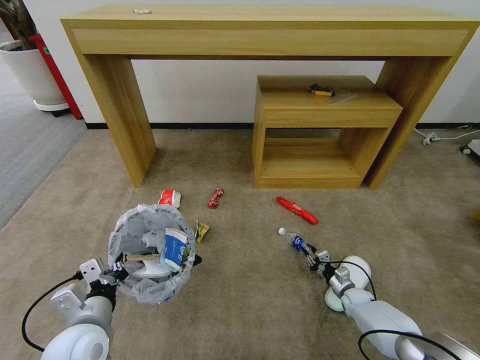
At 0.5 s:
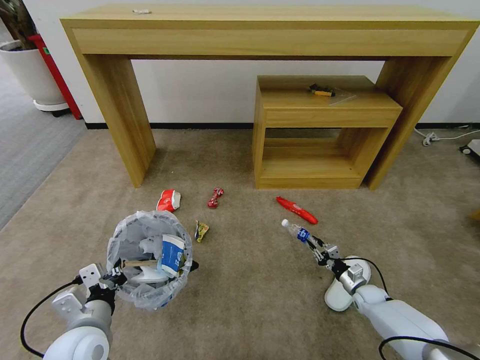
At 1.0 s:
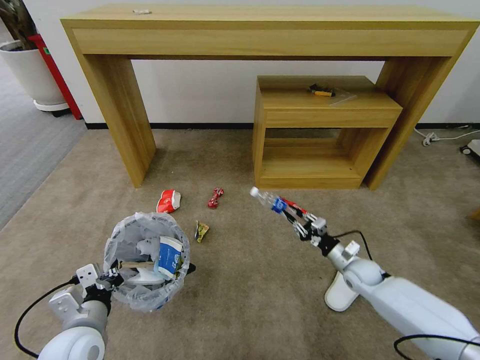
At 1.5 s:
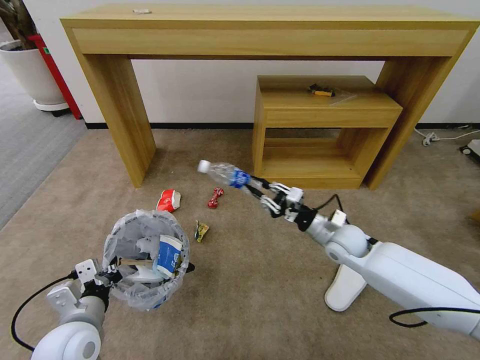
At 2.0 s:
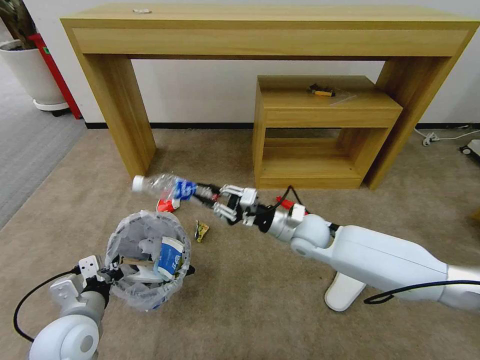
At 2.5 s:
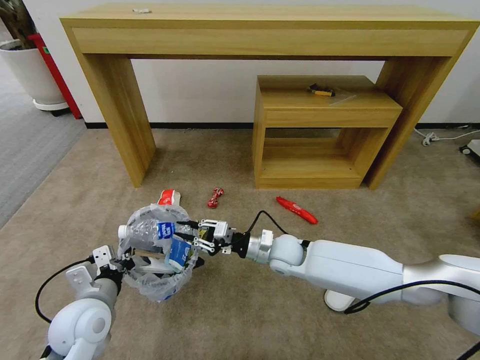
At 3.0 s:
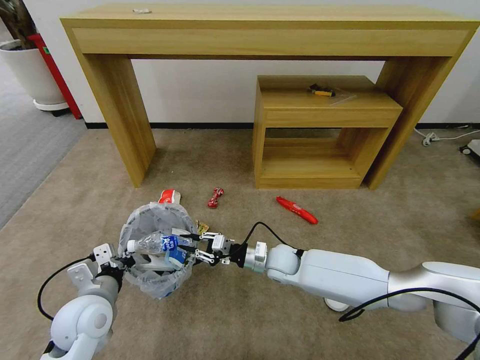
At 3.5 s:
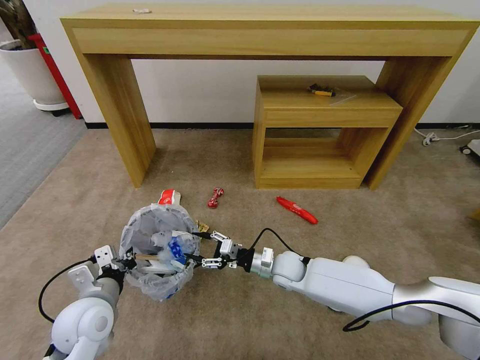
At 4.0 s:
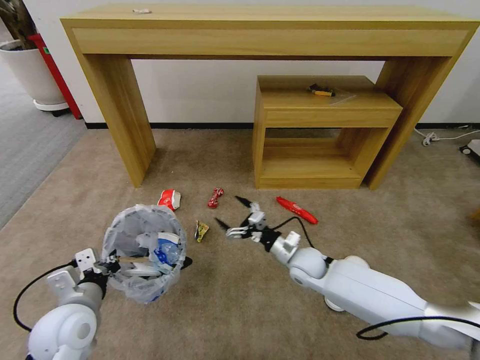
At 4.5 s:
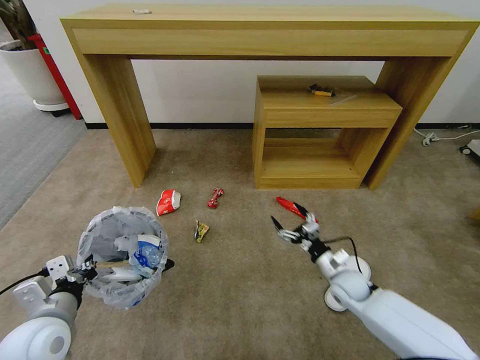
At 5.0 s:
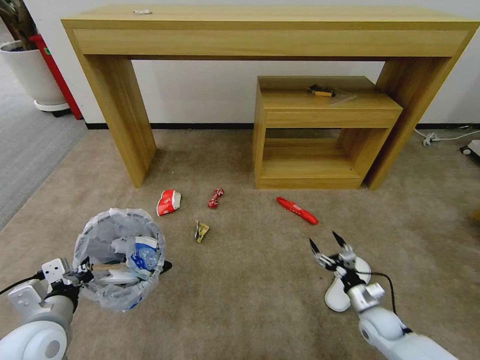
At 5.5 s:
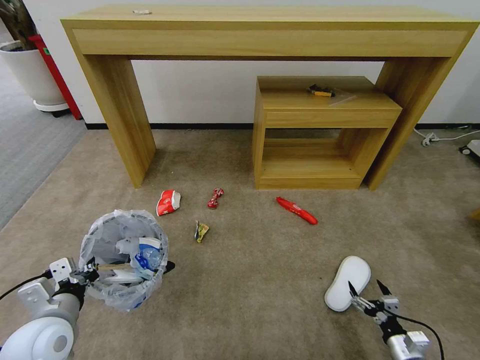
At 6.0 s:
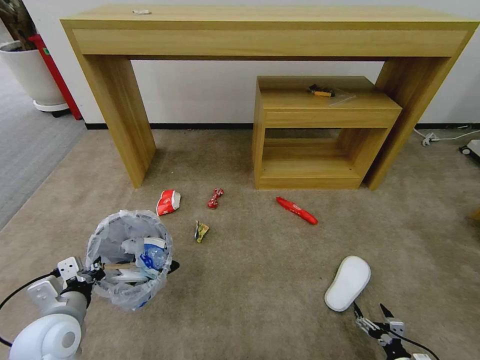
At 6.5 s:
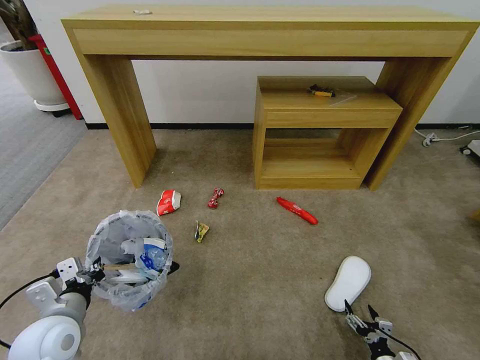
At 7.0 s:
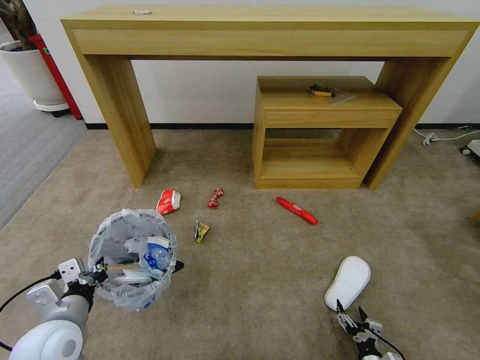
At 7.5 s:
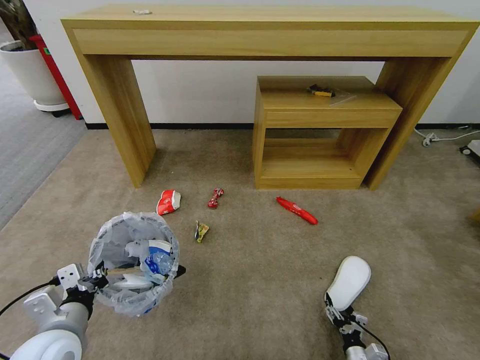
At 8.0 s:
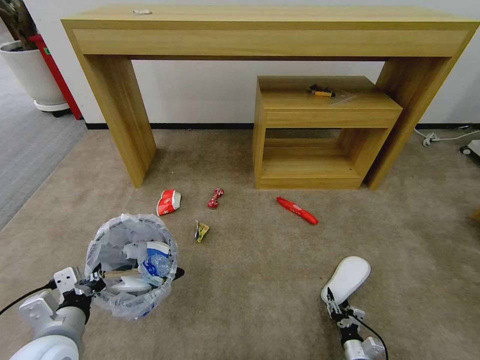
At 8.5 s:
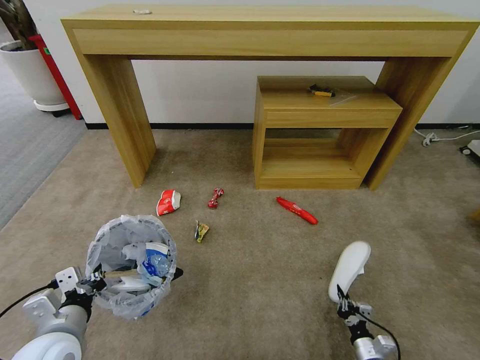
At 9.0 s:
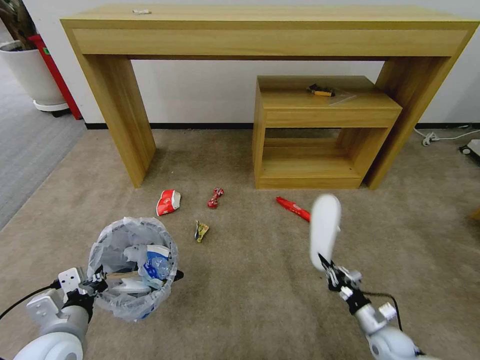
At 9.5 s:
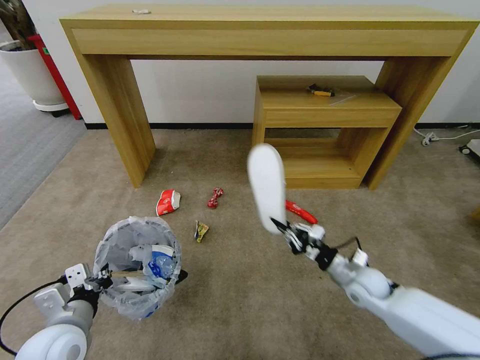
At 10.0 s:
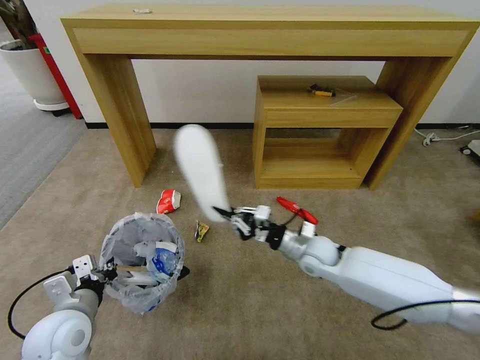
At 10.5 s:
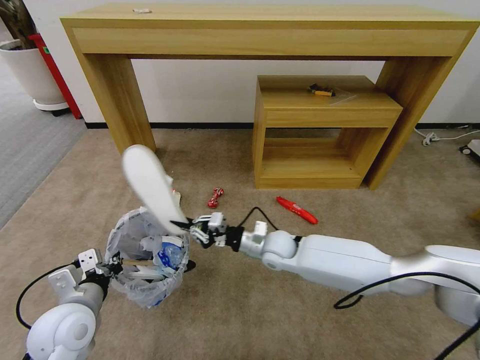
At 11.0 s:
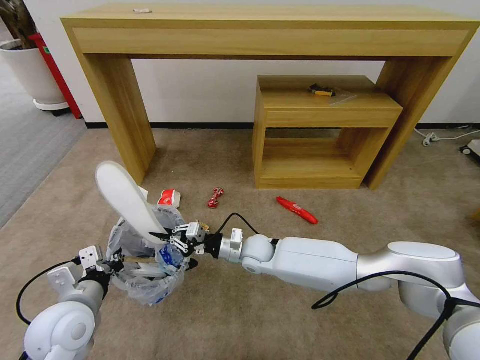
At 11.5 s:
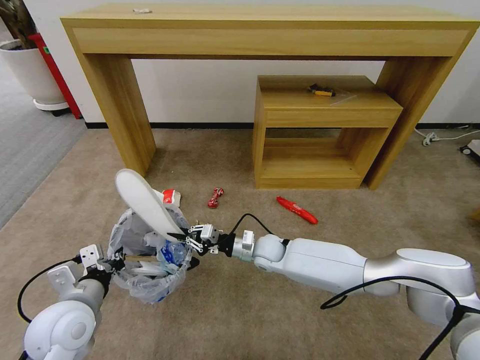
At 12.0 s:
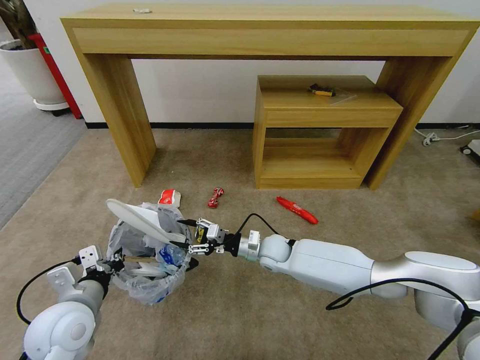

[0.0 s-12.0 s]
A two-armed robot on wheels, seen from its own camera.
Task of the whole recording: Pick up the trash bin and place the garbage on the floor into it.
0.0 to 2.0 s: The right gripper heads upward and to the left, covering roughly 40 cm.
2.0 to 4.0 s: The right gripper moves downward, about 10 cm, and opens its fingers.
4.0 to 6.0 s: The right gripper shifts about 40 cm backward, to the right and downward.
6.0 to 8.0 s: The left gripper changes place by about 5 cm. Meanwhile the right gripper goes some 10 cm to the left and forward, and closes.
8.0 to 10.0 s: The right gripper goes approximately 40 cm upward, forward and to the left, and closes.
10.0 to 12.0 s: The right gripper heads to the left and downward, covering about 10 cm, and opens up.

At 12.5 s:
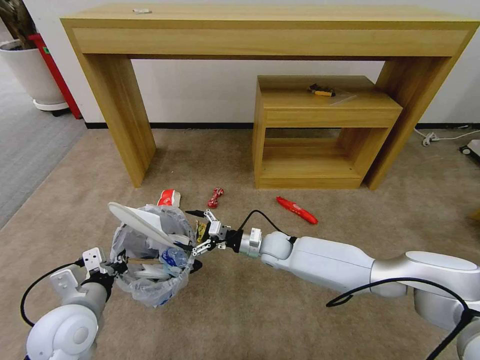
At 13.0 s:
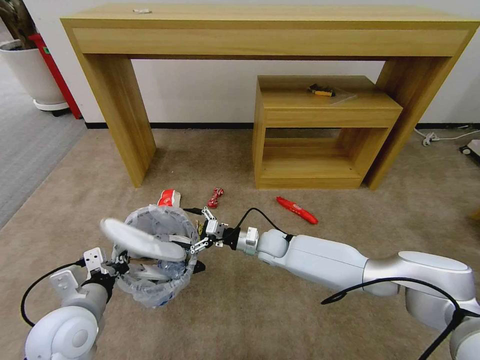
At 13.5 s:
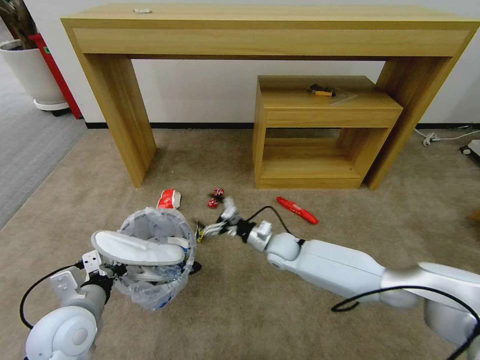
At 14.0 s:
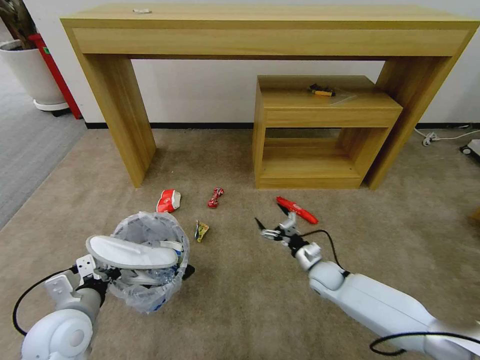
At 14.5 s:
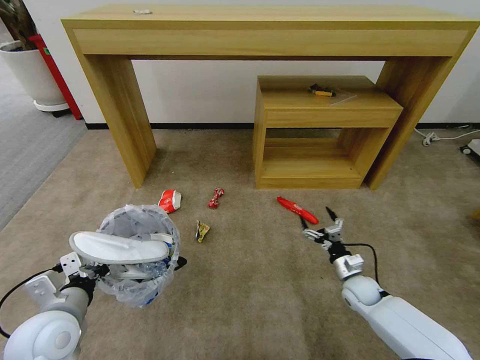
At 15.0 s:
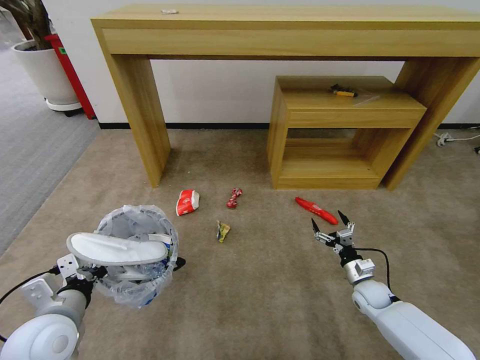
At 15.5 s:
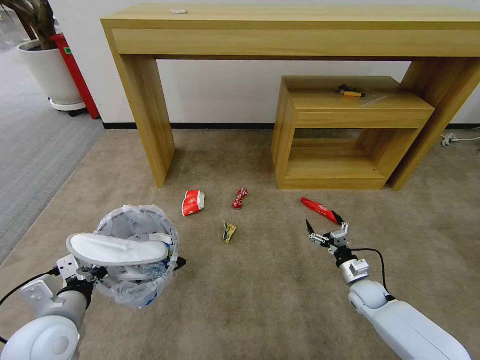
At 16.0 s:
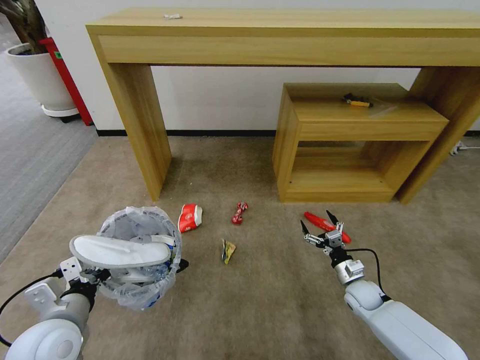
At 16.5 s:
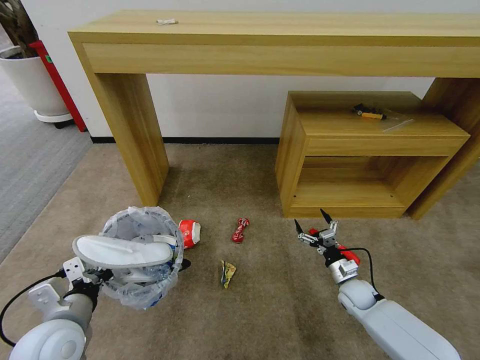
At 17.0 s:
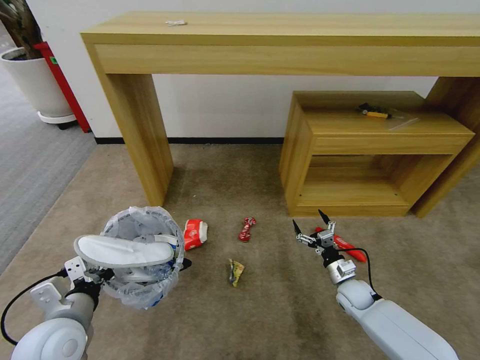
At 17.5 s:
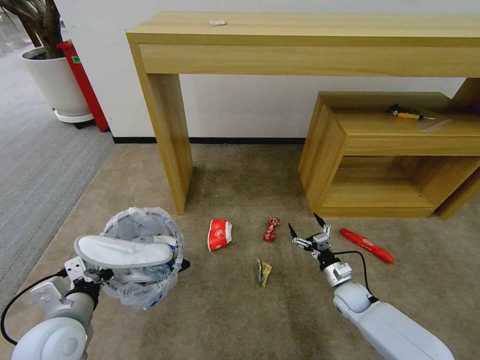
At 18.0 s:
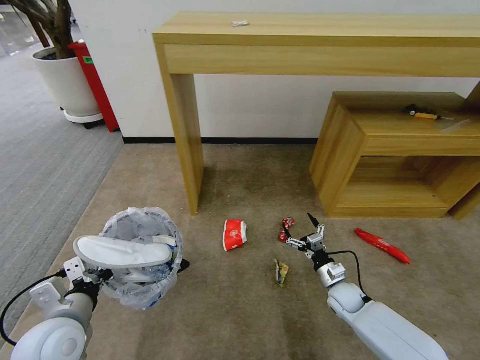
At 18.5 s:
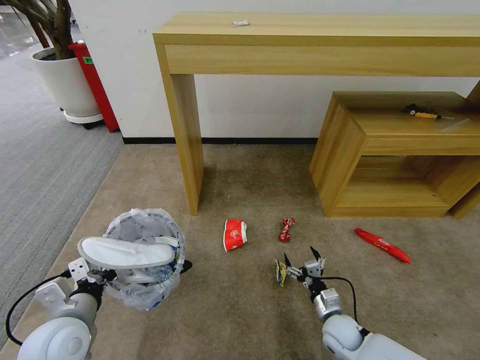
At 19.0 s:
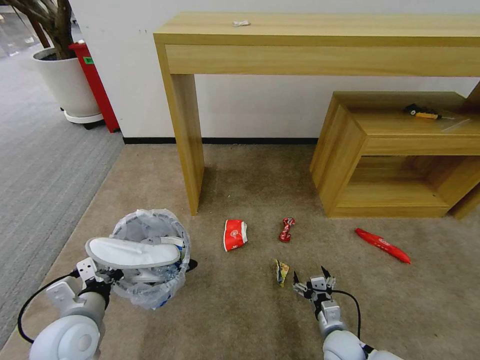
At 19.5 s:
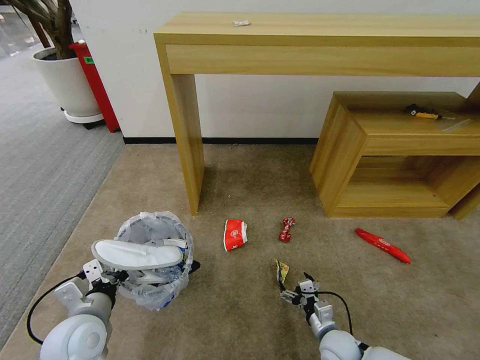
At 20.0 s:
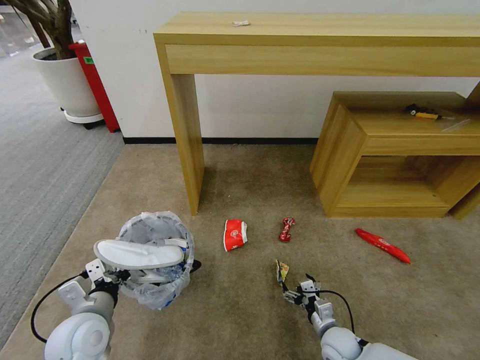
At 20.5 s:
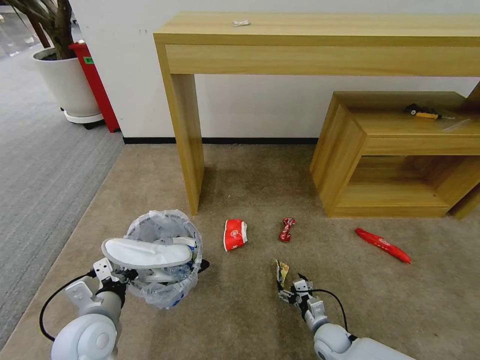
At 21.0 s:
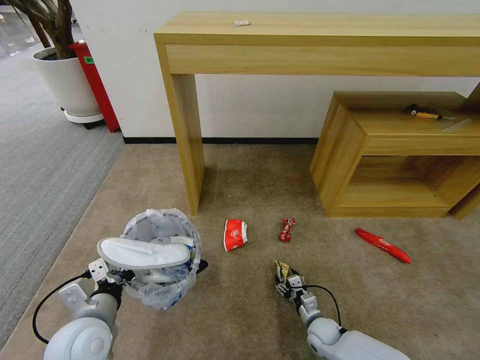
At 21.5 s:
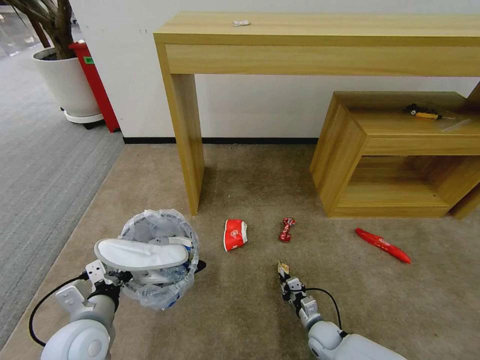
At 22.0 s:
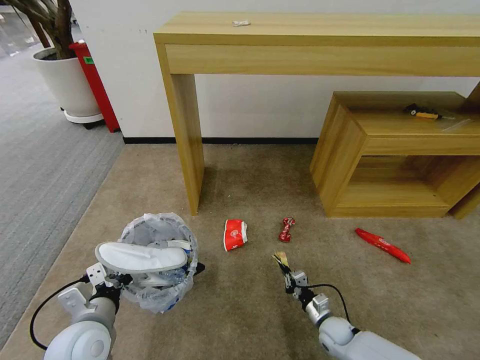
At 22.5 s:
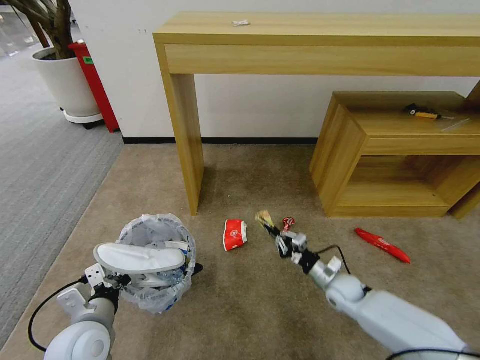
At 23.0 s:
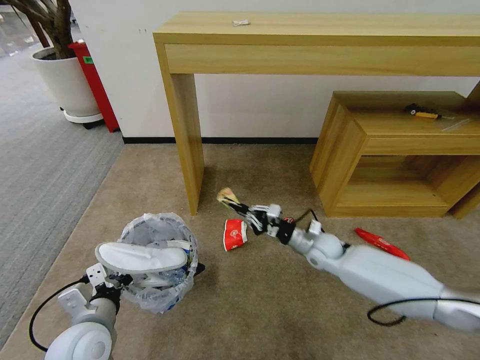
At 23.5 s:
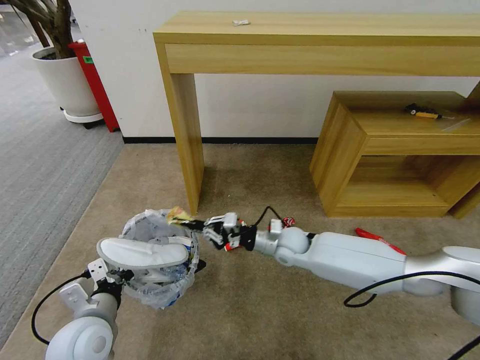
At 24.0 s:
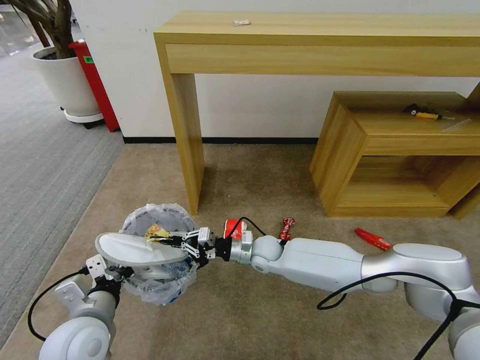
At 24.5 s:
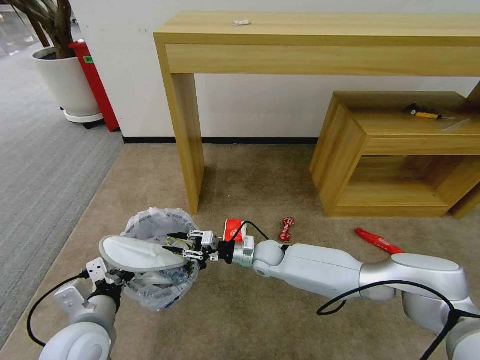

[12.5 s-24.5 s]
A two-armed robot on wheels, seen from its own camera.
Task of the whole recording: Pick up the trash bin and place the garbage on the floor into it.
12.5 to 14.5 s: The right gripper shifts some 25 cm to the right.
16.5 to 18.5 s: The right gripper is displaced backward and to the left by approximately 10 cm.
18.5 to 20.5 s: The right gripper moves downward, roughly 5 cm.
20.5 to 22.5 s: The right gripper heads upward and forward, covering some 15 cm, and closes up.
22.5 to 24.5 s: The right gripper moves to the left, some 20 cm, and opens its fingers.

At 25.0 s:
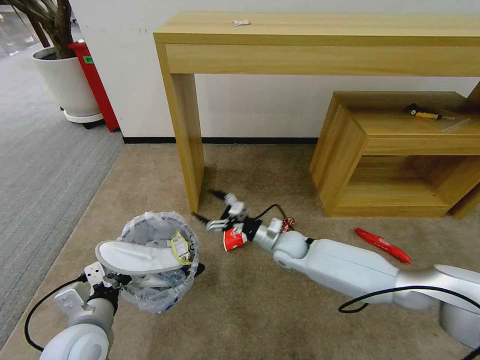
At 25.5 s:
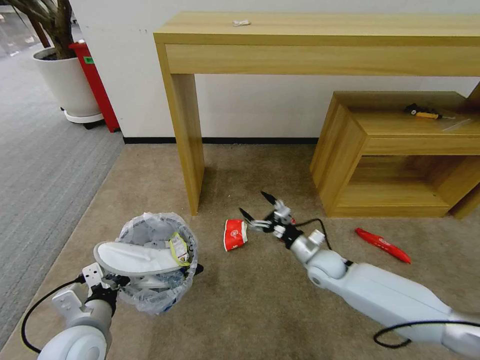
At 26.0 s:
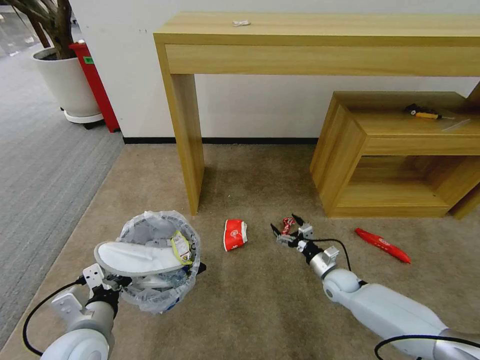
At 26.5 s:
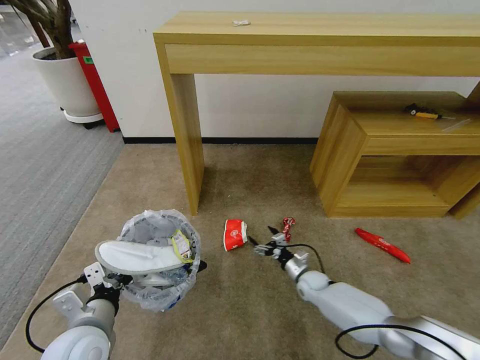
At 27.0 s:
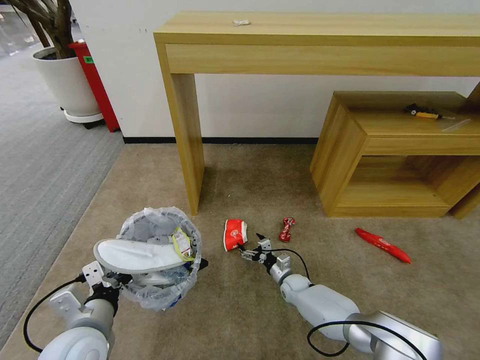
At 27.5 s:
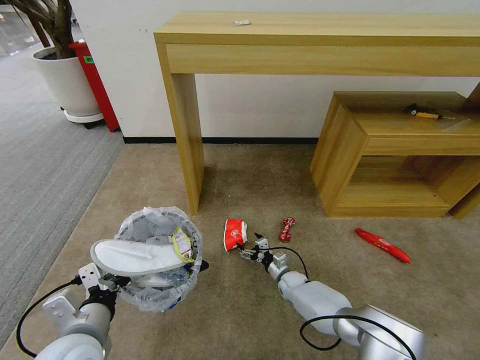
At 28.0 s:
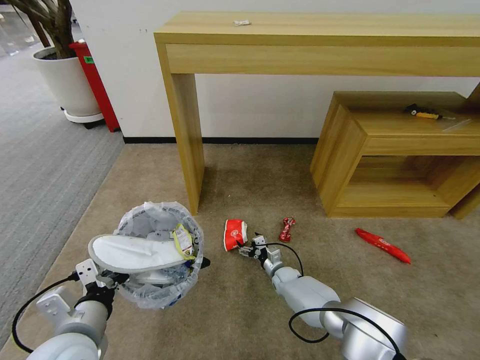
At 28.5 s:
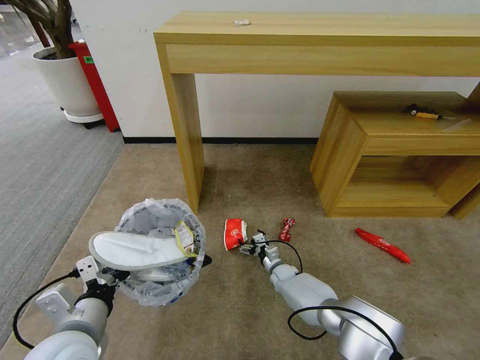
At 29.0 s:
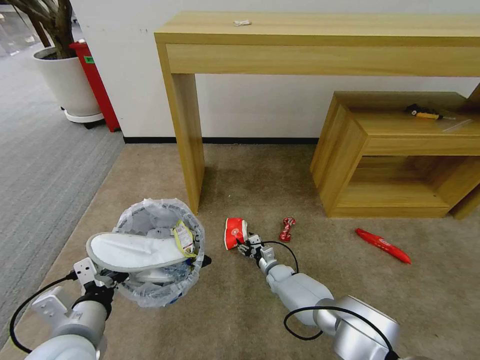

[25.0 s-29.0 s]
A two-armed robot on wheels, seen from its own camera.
Task of the whole recording: Pick up the trash bin and place the garbage on the floor into it.
25.0 to 27.0 s: The right gripper is displaced downward by some 20 cm.
27.0 to 29.0 s: The right gripper shifts by some 5 cm, and closes its fingers.
